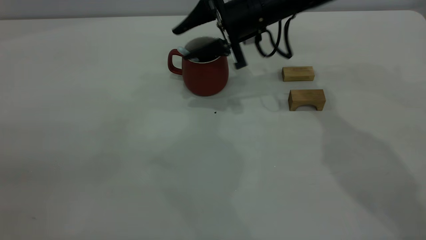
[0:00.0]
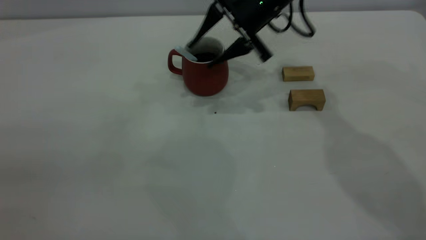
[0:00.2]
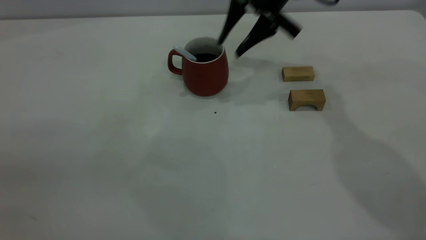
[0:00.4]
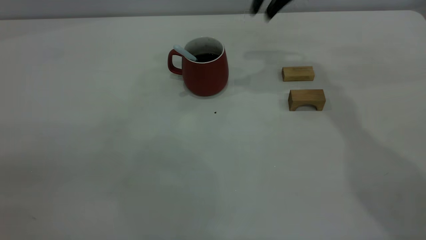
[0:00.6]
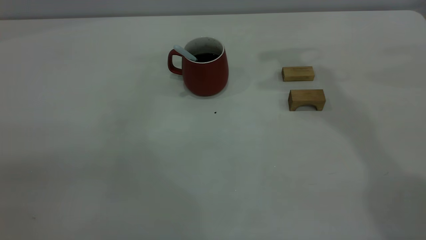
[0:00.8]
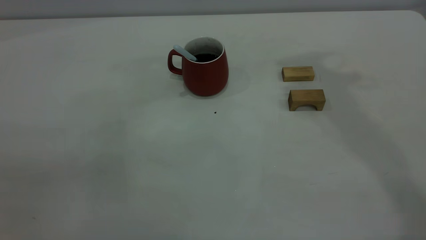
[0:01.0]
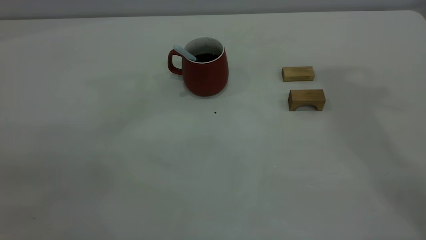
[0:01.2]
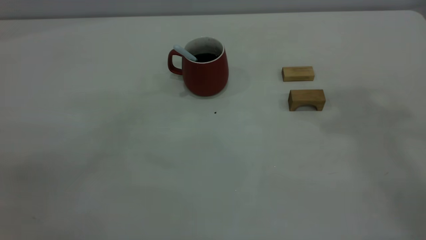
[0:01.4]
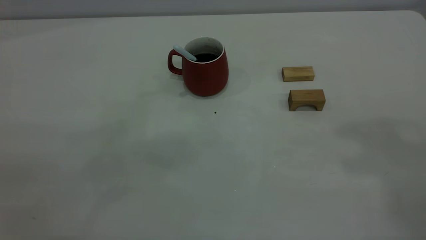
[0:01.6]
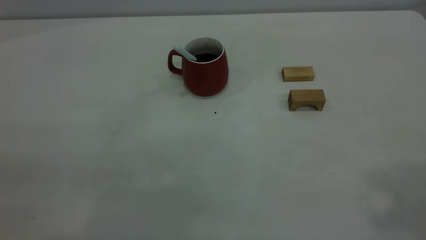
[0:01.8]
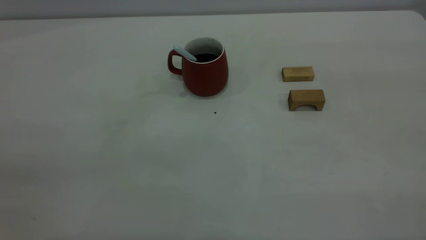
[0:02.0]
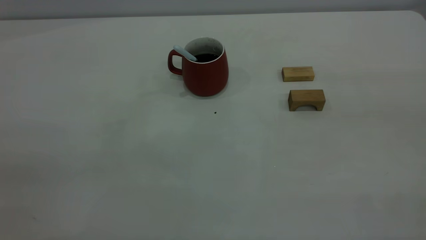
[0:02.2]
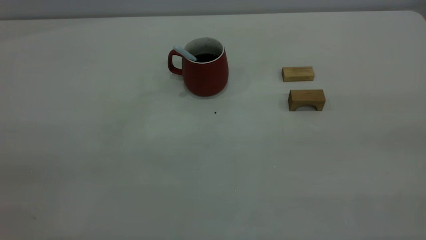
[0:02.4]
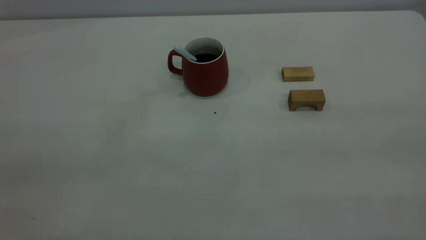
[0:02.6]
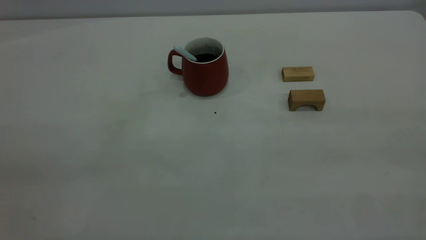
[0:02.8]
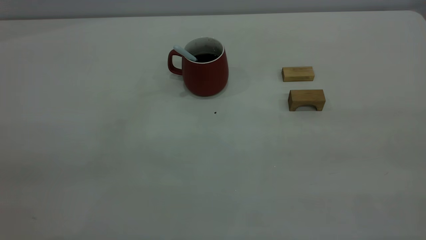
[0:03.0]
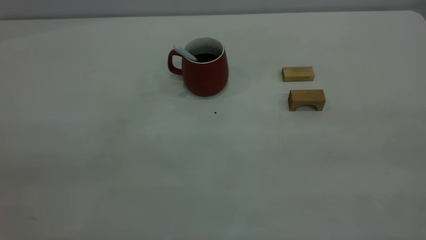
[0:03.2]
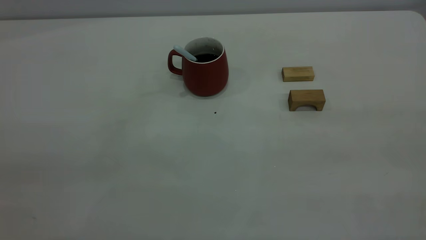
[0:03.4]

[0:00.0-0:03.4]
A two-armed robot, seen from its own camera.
0:00.0 to 0:01.6: The right gripper travels upward, backward and to the right by roughly 50 cm, and closes its fingers.
